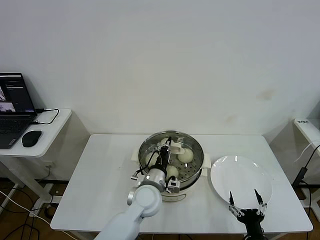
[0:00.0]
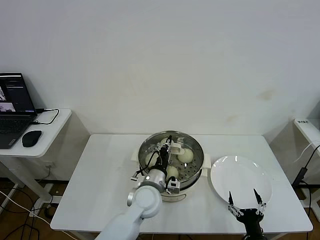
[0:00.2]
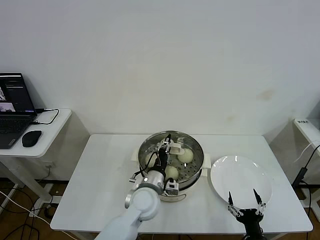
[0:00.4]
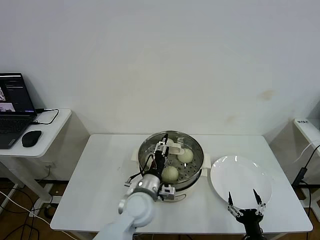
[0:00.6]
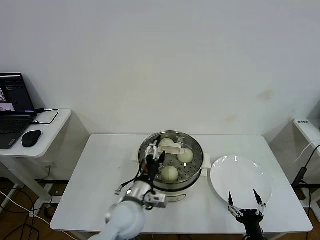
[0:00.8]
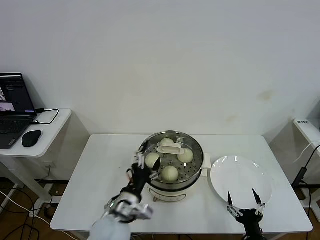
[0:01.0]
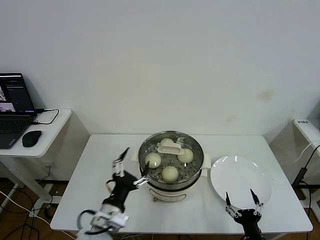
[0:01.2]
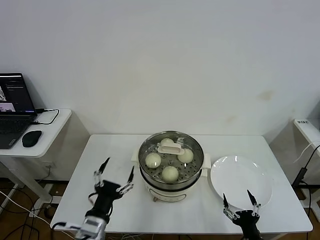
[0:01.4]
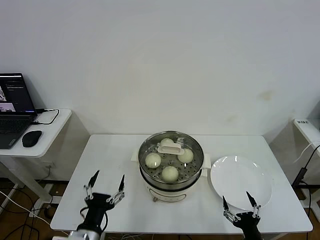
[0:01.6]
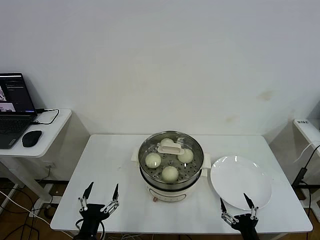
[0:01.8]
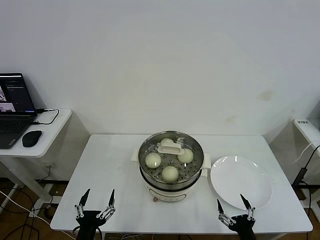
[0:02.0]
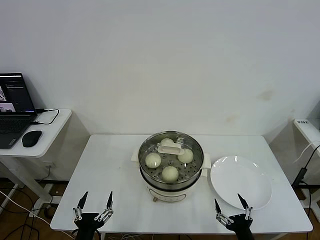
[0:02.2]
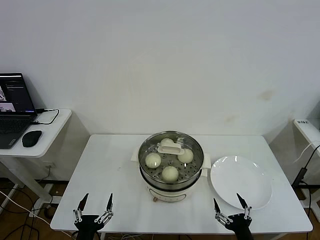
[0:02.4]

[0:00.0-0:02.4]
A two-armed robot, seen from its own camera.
0:00.0 to 0:01.2: The left gripper shifts roughly 15 cm backward and to the left, and opens up.
0:01.2 to 0:02.4: The left gripper travels backward, to the left and downward by approximately 15 cm.

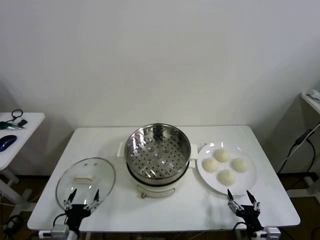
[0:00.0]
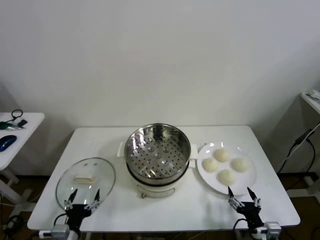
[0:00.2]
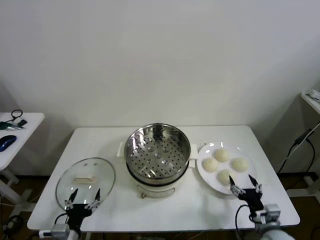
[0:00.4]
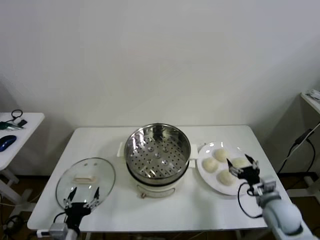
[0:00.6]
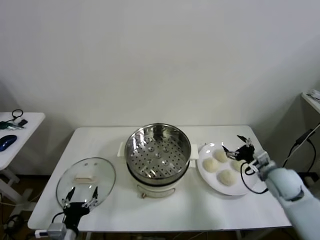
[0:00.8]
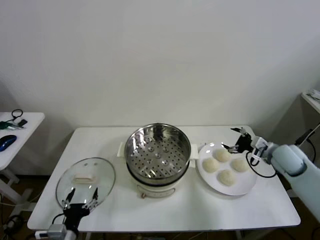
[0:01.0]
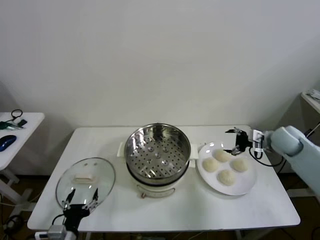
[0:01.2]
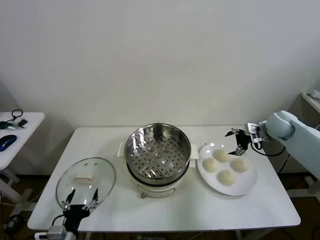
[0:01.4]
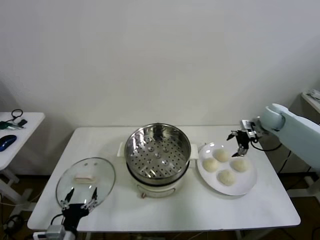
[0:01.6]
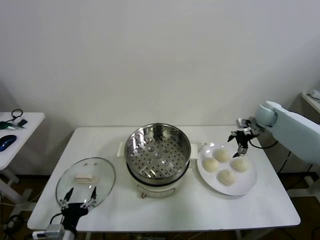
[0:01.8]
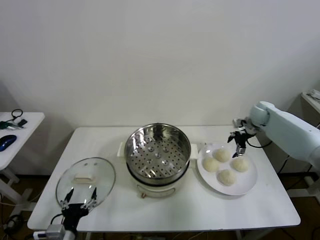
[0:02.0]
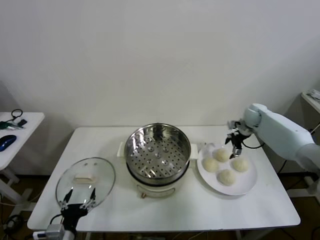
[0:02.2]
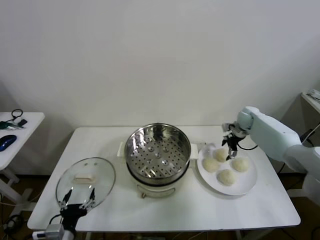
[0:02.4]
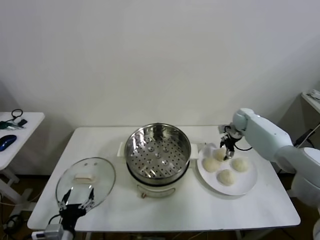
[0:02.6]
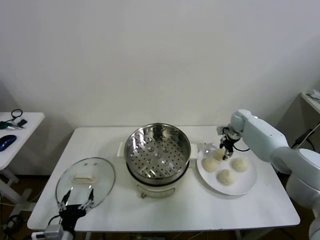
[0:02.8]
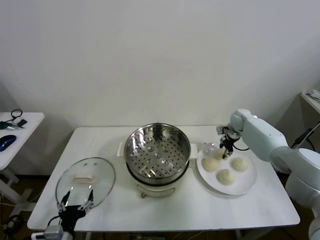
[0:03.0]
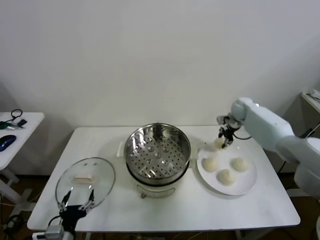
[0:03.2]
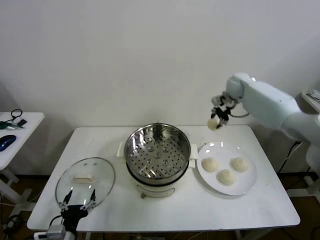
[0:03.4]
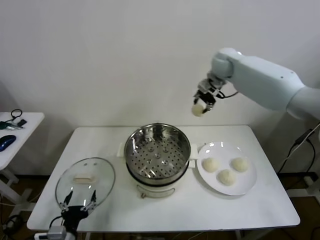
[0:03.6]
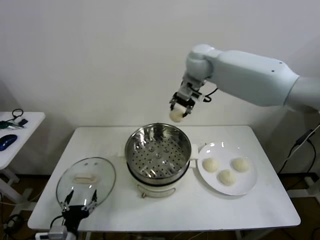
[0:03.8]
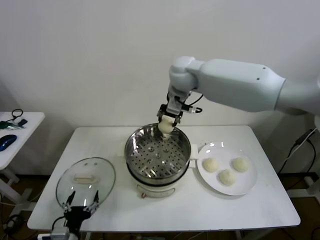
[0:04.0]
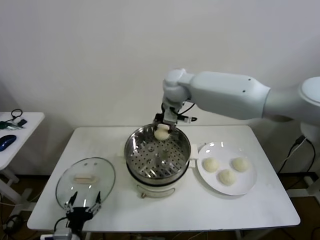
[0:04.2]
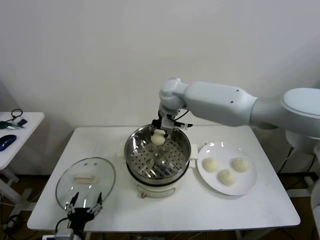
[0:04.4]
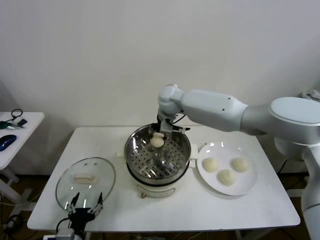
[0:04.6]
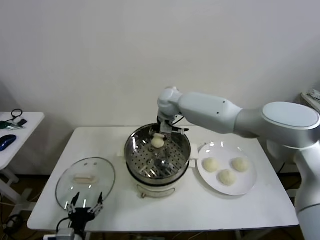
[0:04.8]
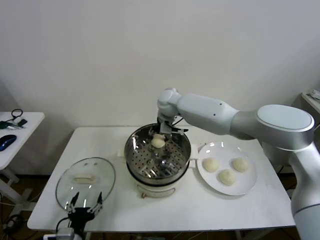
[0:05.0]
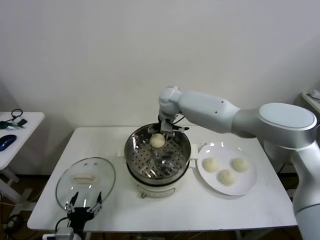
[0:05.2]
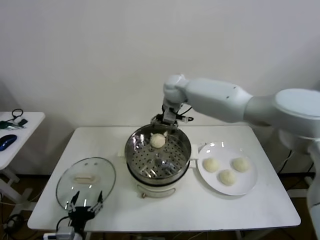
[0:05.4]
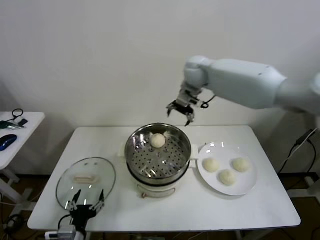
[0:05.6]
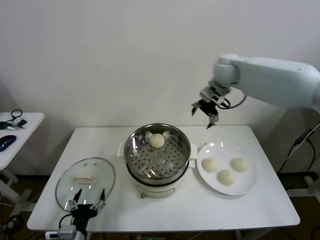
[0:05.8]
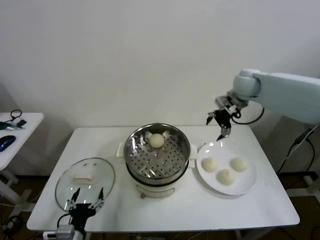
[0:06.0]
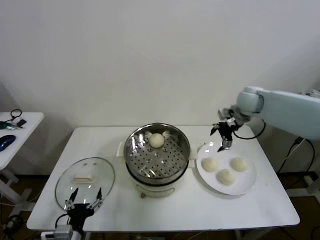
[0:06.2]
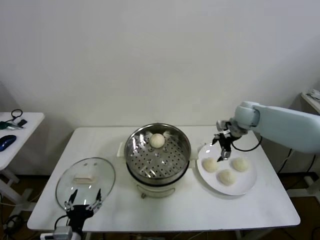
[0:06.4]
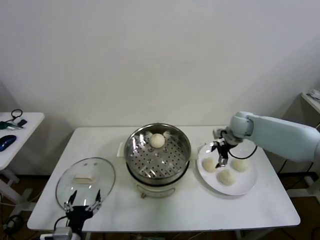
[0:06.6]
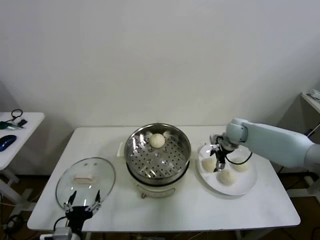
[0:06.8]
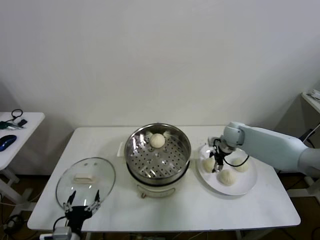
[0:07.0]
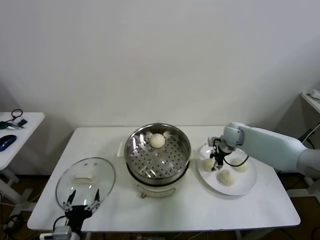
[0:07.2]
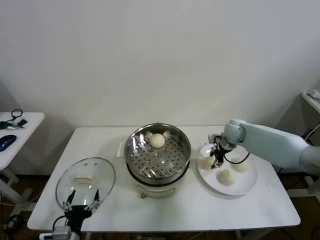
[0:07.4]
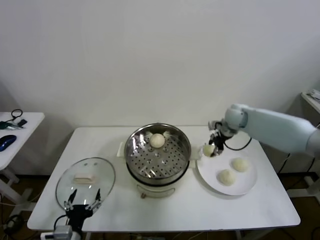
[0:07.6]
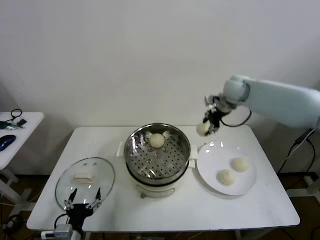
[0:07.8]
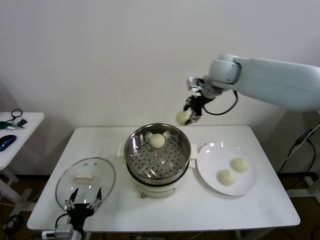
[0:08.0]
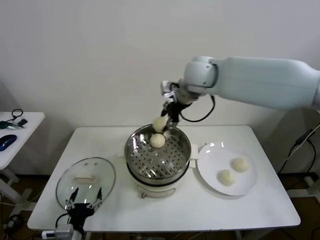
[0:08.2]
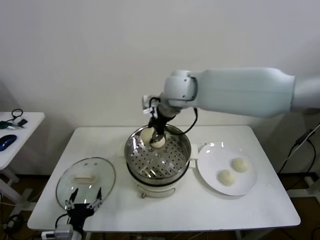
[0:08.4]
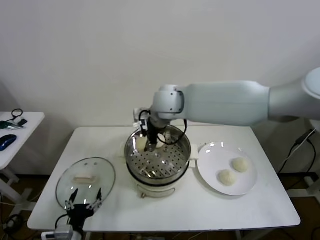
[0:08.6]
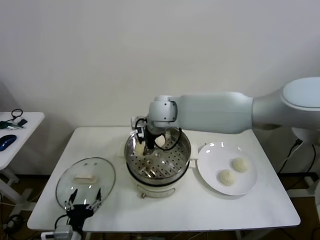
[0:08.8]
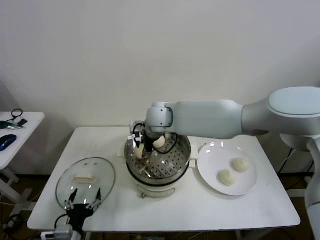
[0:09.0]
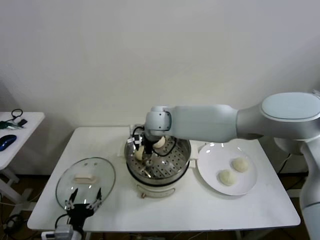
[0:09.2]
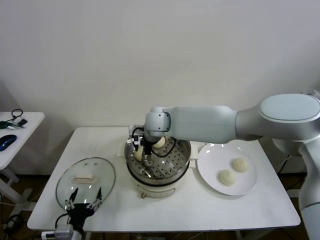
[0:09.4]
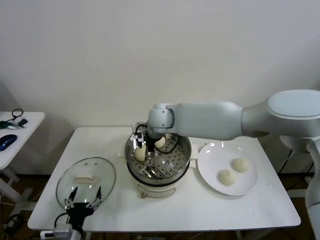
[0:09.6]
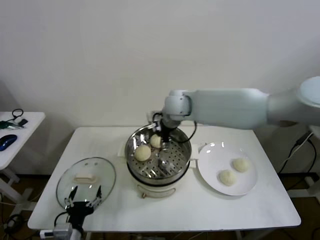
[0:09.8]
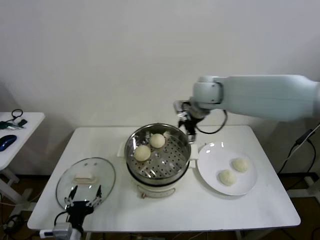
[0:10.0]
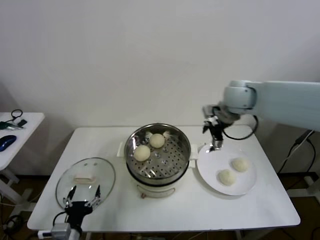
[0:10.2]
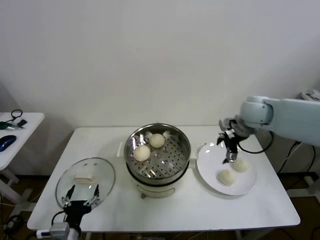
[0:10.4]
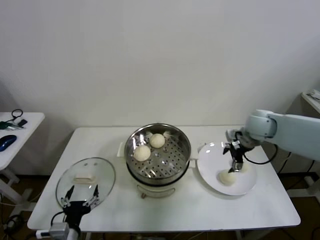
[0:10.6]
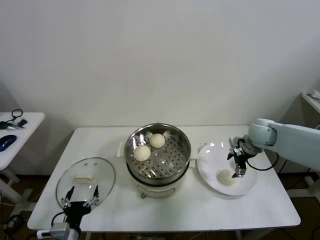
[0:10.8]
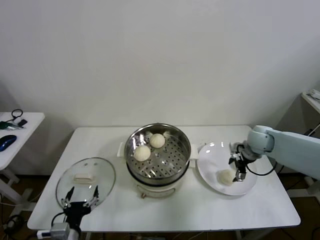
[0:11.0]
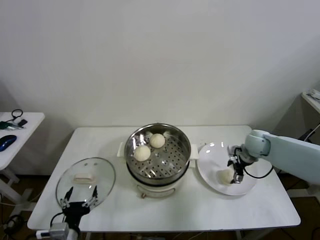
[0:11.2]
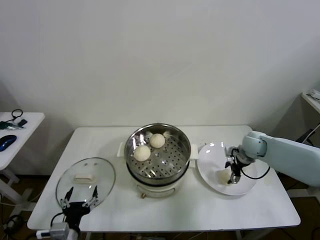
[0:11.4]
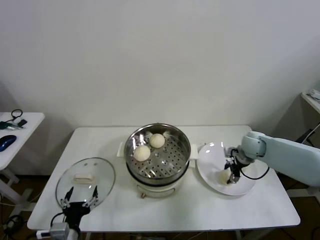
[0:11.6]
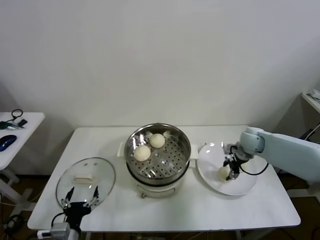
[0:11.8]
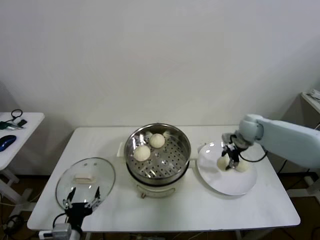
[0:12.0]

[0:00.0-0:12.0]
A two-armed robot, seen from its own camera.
Step, 0:00.0 to 0:02.8: Grasp the baozi in the plate with right gripper.
Step, 0:03.0 to 0:05.2: Place the baozi on the steamer with right gripper.
Step, 0:05.4 to 0:07.2: Grasp the baozi in the plate with right gripper.
Step, 0:07.4 to 0:09.4: Place the baozi on the steamer with right gripper.
Step, 0:09.6 to 0:11.6: Grasp the baozi in the plate with right gripper.
0:01.6 to 0:03.0: The right gripper is displaced forward, to the left and downward by some 10 cm, and closes its fingers.
0:03.0 to 0:04.4: The right gripper is displaced to the left and upward by some 35 cm.
0:04.4 to 0:06.0: The right gripper heads to the right, covering about 25 cm, and opens.
0:06.0 to 0:07.6: The right gripper travels downward and back again, roughly 20 cm each way, and closes its fingers.
0:07.6 to 0:09.0: The right gripper travels to the left by about 30 cm.
0:09.0 to 0:10.4: The right gripper travels to the right by about 30 cm, and opens up.
0:10.4 to 0:12.0: The right gripper goes about 5 cm downward, and closes its fingers.

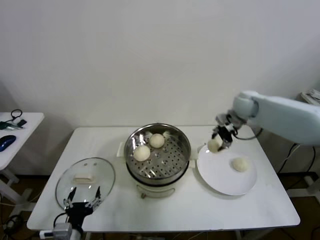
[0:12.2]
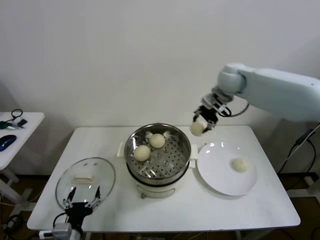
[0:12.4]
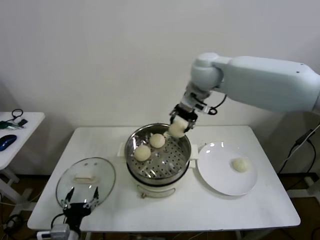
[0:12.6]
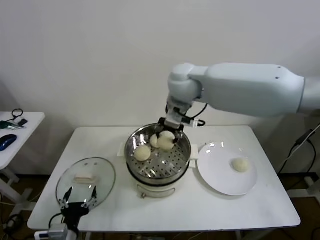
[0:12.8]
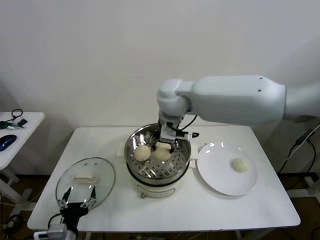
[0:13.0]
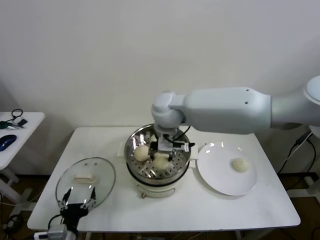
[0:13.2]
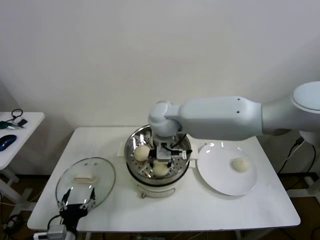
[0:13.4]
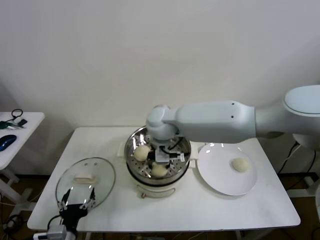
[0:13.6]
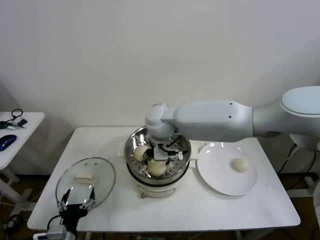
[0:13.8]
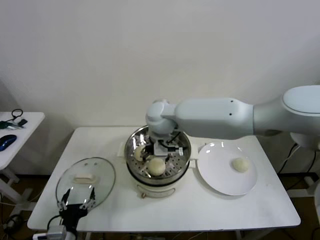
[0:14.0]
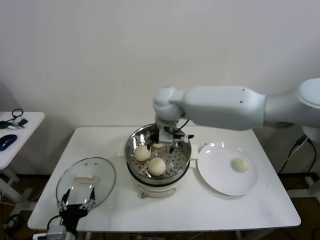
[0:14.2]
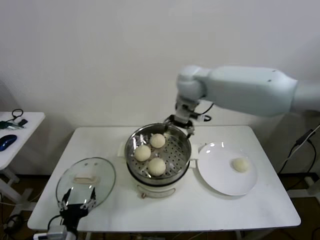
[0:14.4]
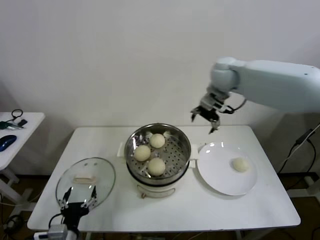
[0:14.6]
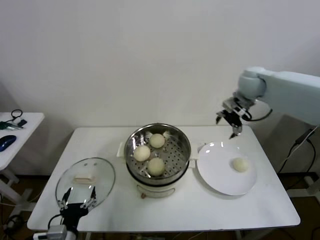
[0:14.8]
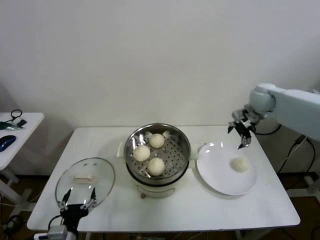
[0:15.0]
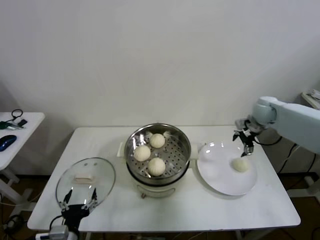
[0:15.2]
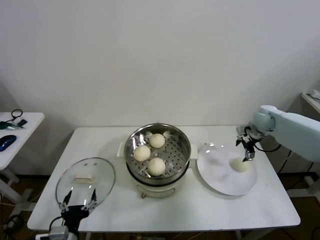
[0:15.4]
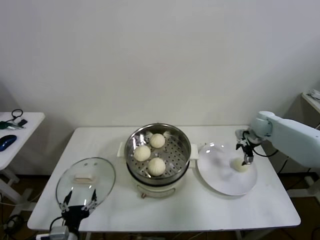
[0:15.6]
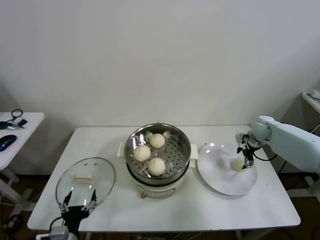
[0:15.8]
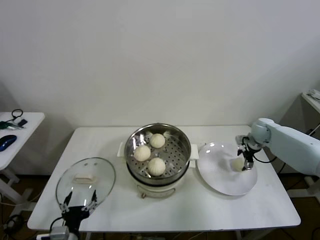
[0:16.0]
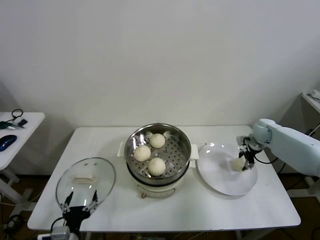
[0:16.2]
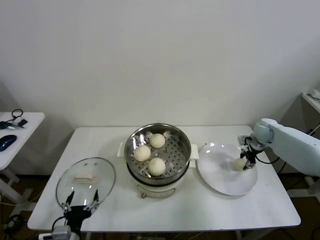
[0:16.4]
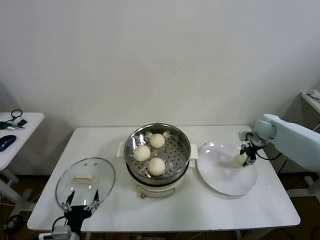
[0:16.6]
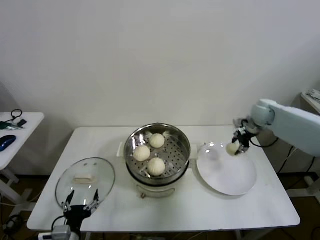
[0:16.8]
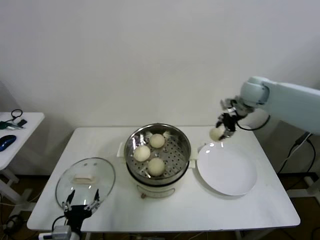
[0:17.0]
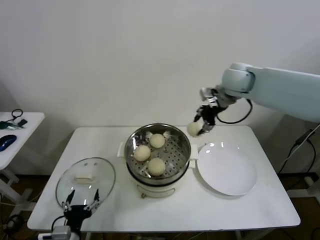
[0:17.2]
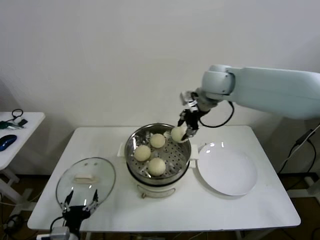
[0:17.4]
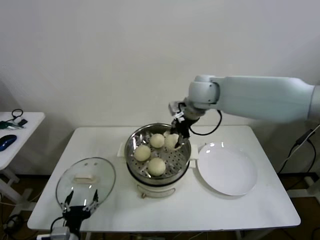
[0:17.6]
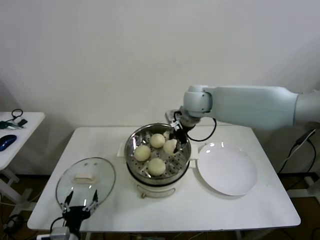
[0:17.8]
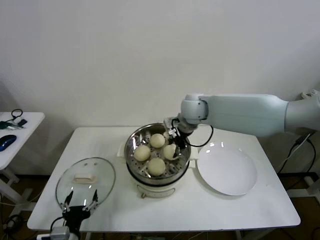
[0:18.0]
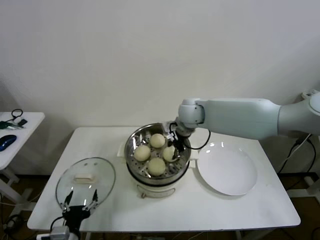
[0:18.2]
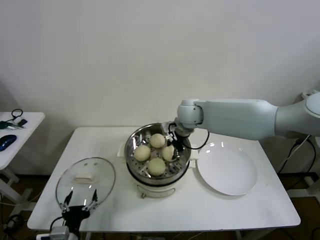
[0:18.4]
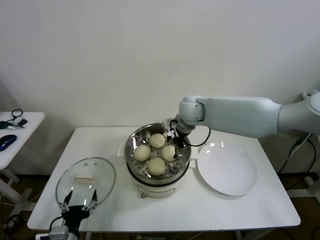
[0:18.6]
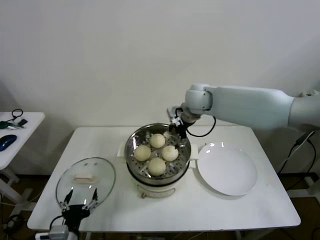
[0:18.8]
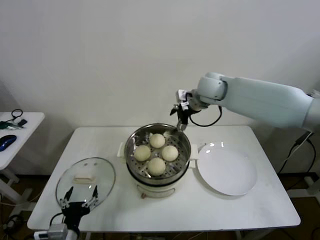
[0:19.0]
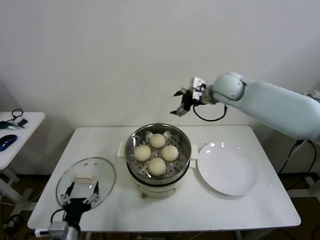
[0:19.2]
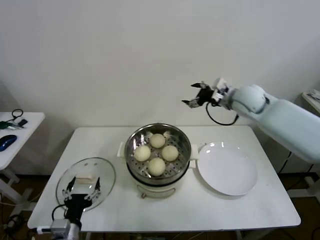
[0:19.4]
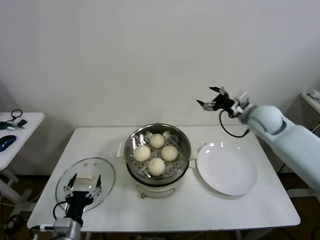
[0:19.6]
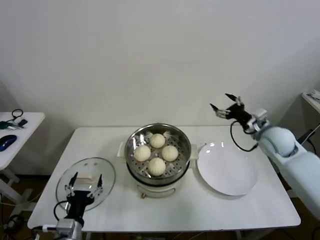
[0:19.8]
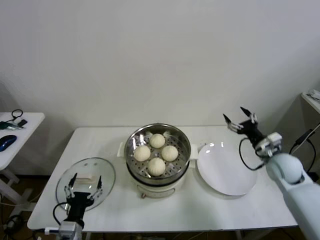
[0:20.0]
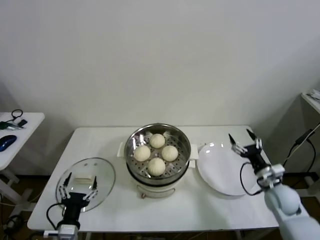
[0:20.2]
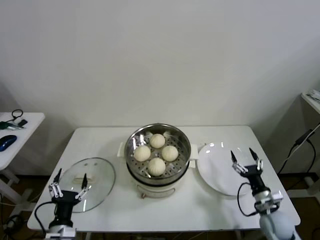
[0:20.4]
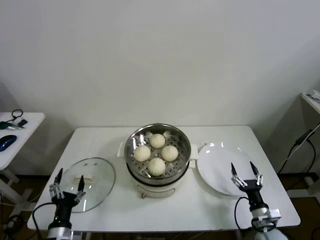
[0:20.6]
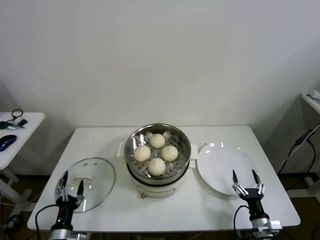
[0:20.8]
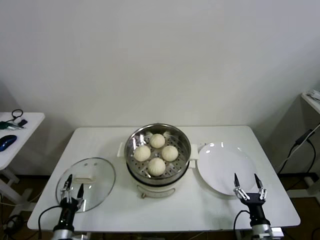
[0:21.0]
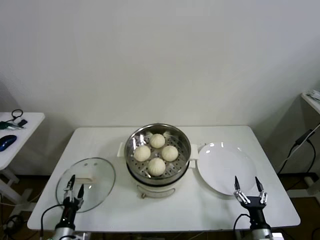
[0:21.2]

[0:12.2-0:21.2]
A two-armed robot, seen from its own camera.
Step, 0:12.2 to 0:13.8: Place the baozi on the steamer with right gripper.
Step, 0:14.0 to 0:16.2: Grasp the baozi in the plate with right gripper.
Step, 0:16.4 to 0:18.4: Place the baozi on the steamer with right gripper.
0:12.2 to 0:13.8: The right gripper goes roughly 30 cm to the left, and opens its fingers.
0:13.8 to 0:15.2: The right gripper moves to the right, about 40 cm.
0:15.2 to 0:16.6: The right gripper heads downward, covering approximately 5 cm, and closes up.
0:16.6 to 0:18.2: The right gripper goes some 30 cm to the left.
0:18.2 to 0:19.8: The right gripper heads to the right, covering roughly 25 cm, and opens its fingers.
0:19.8 to 0:21.2: The left gripper heads downward and to the left, covering about 15 cm, while the right gripper is displaced backward and downward by roughly 40 cm.
